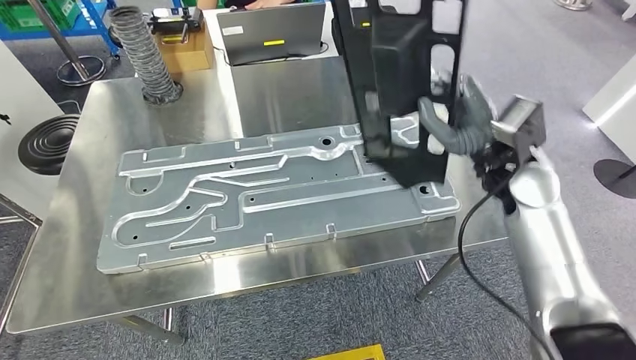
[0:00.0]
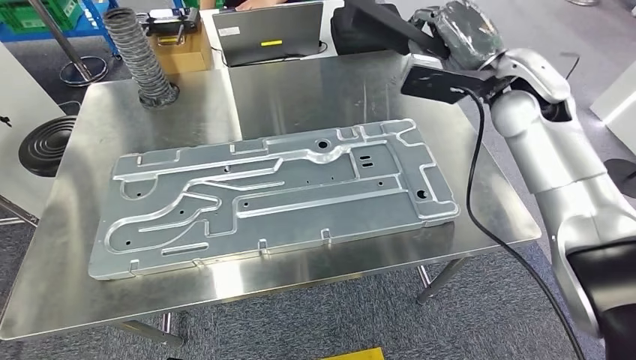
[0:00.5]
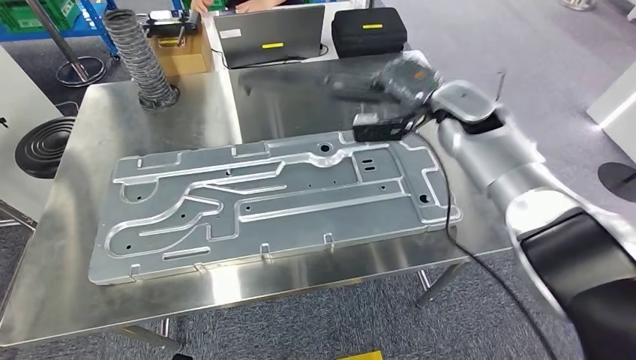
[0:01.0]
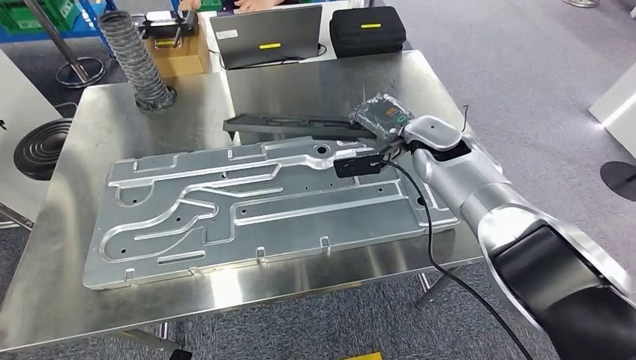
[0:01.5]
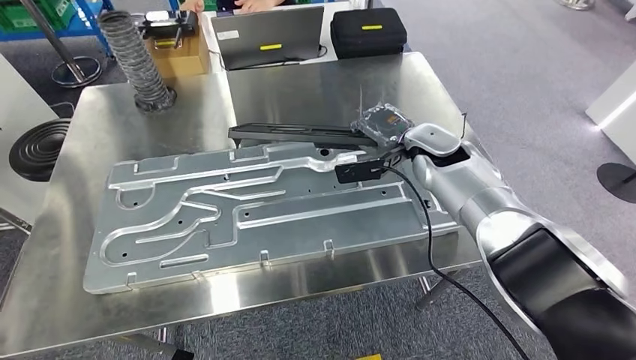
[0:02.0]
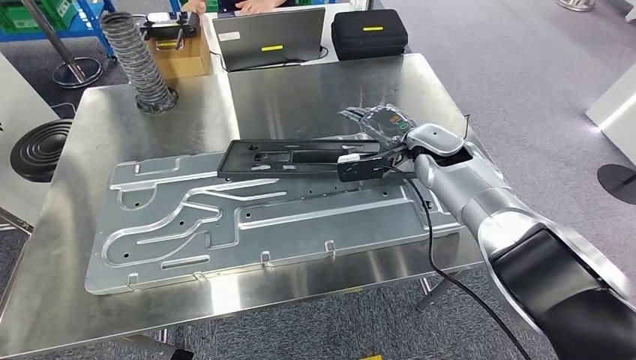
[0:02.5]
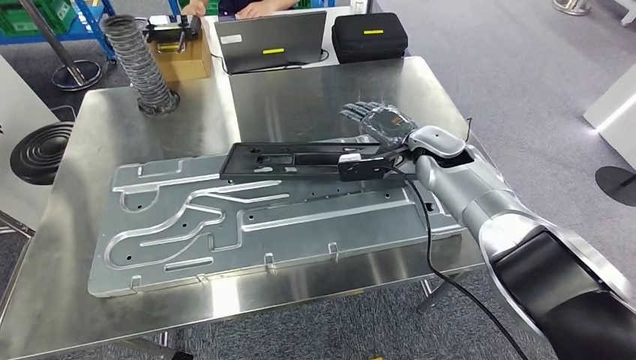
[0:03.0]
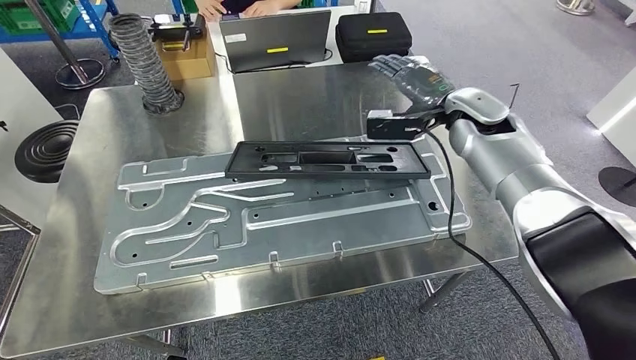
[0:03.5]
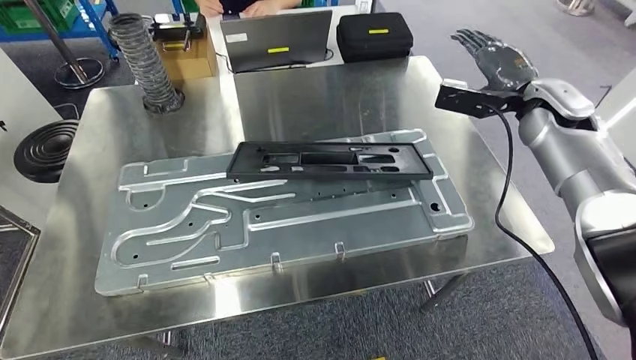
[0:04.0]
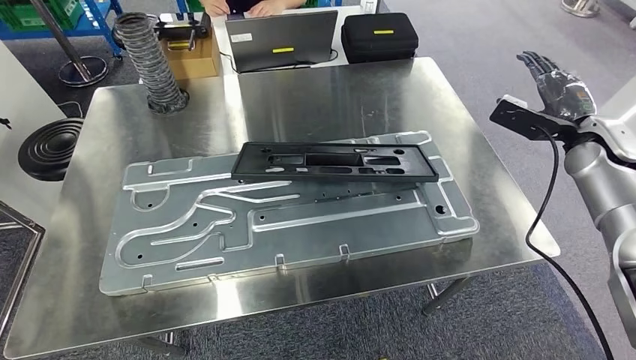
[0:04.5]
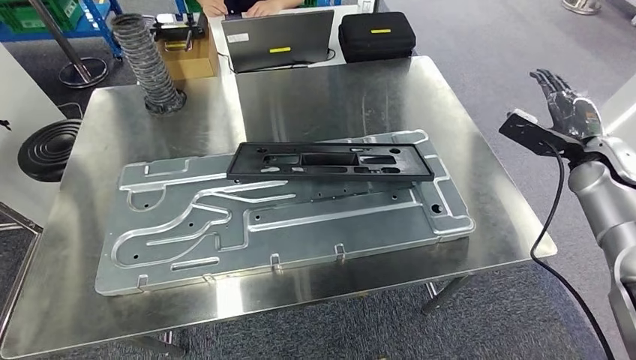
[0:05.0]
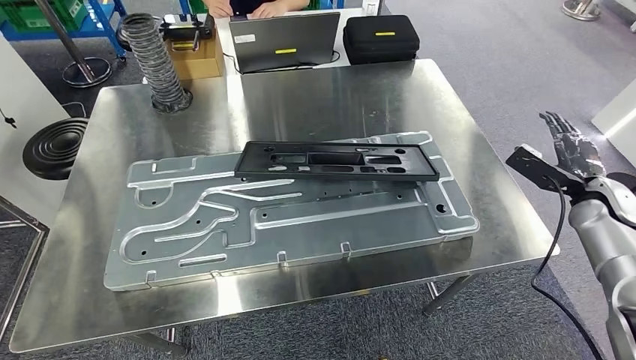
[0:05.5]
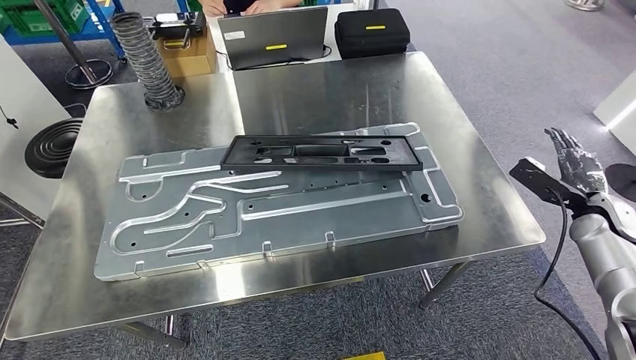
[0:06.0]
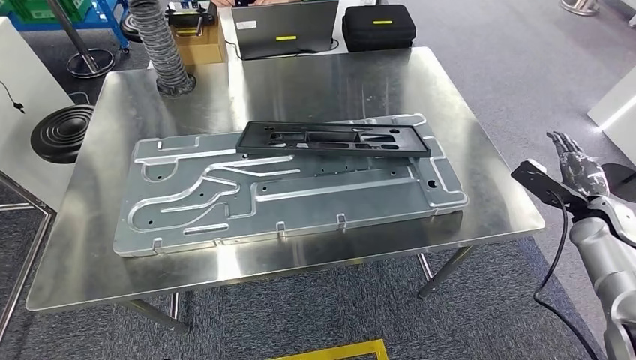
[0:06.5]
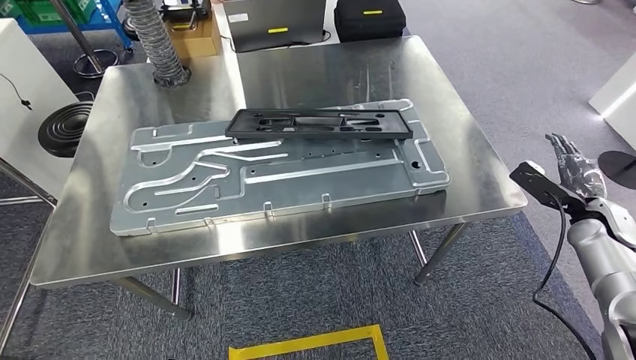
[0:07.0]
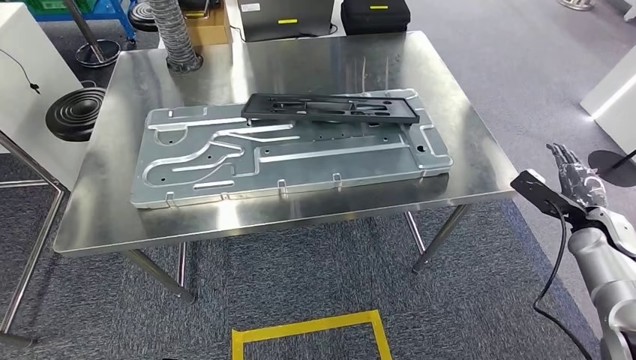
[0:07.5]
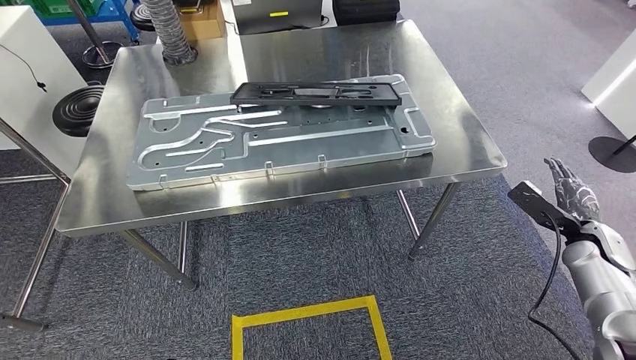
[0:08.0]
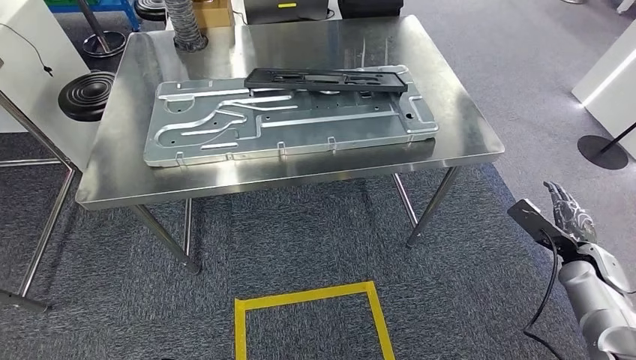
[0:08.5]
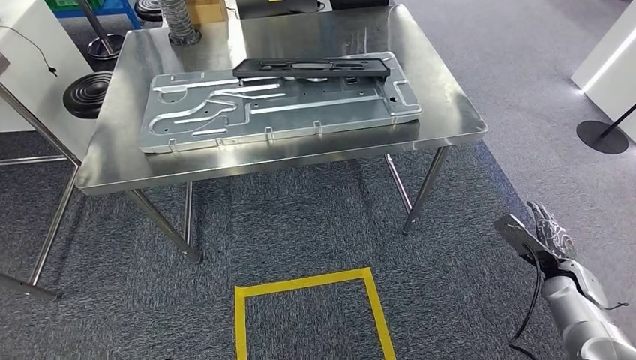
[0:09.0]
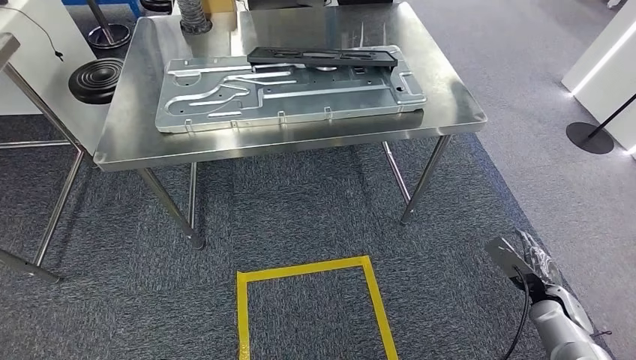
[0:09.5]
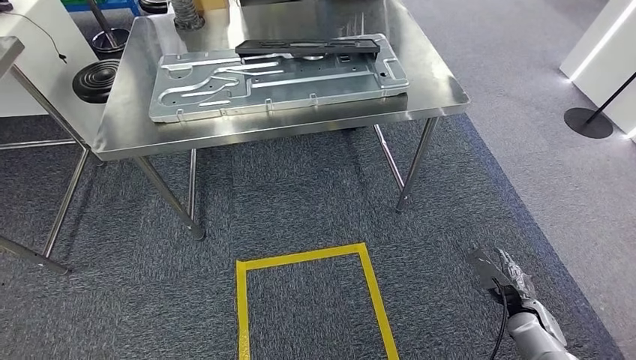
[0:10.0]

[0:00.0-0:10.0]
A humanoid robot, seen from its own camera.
Step, 0:00.0 to 0:04.0: Insert the large material into the corresponding hole on the workbench.

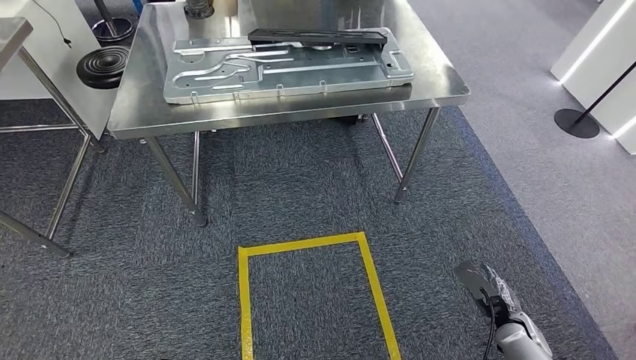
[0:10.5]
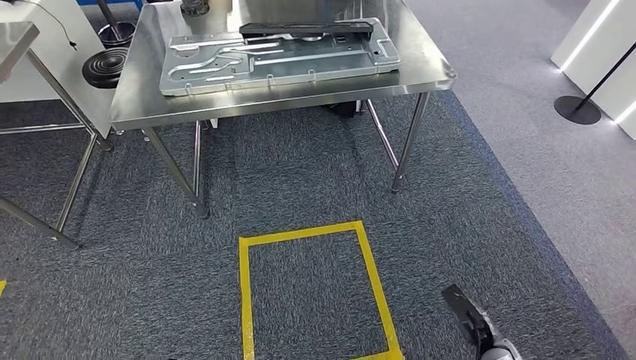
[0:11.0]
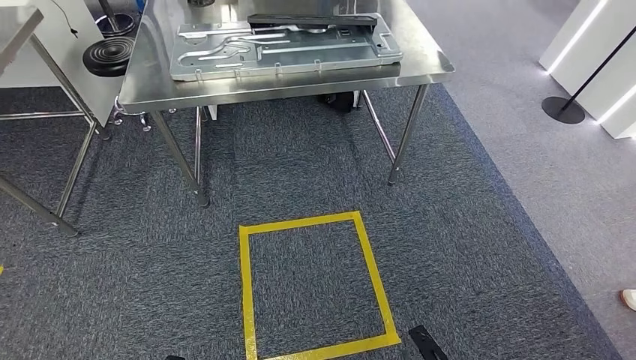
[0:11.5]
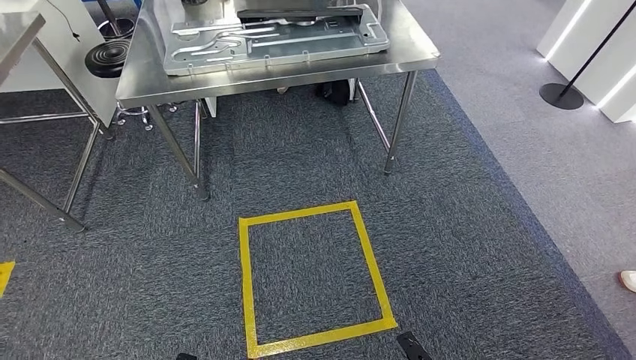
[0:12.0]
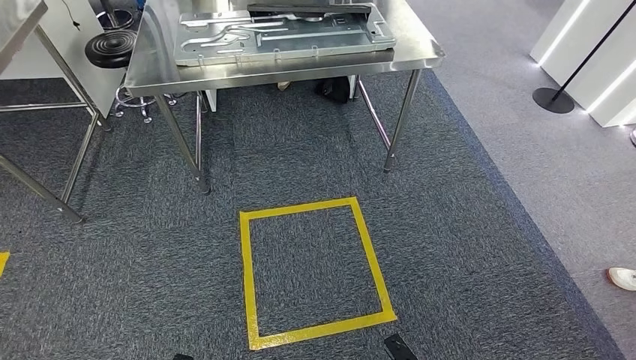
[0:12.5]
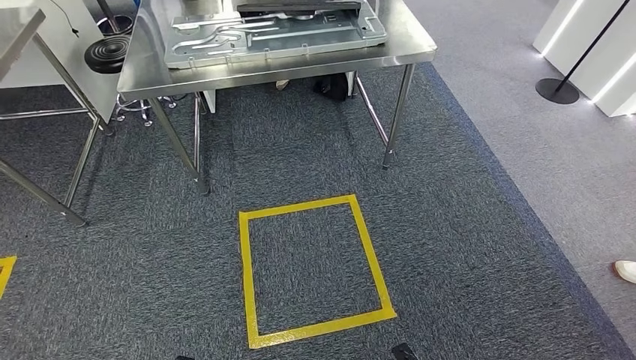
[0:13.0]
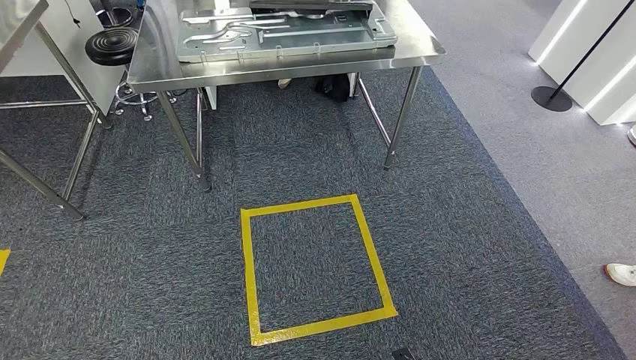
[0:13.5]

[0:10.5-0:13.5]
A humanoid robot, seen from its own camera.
Step, 0:10.5 to 0:13.5: Move to the initial position of the shelf.
0:12.0 to 0:13.5: The left hand shifts about 5 cm backward.
